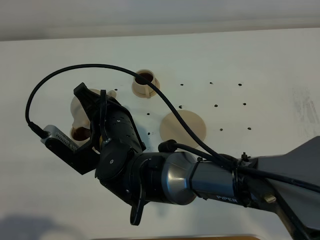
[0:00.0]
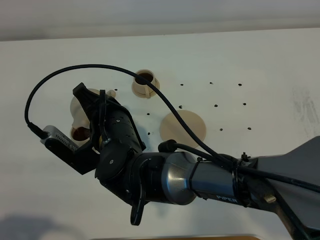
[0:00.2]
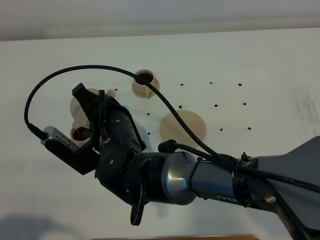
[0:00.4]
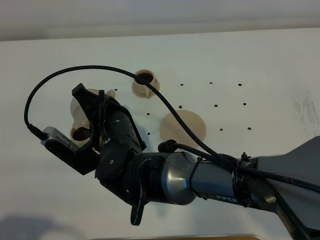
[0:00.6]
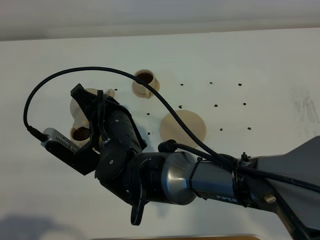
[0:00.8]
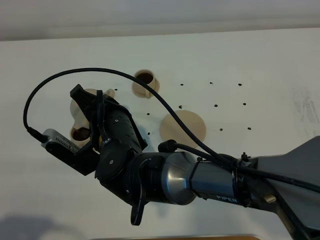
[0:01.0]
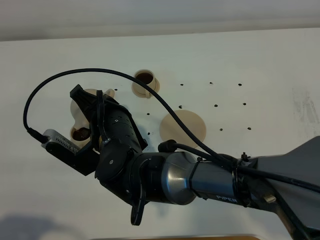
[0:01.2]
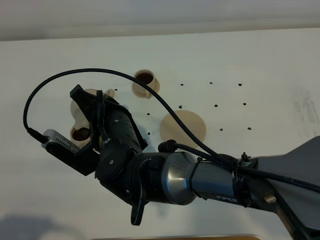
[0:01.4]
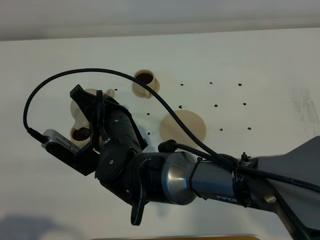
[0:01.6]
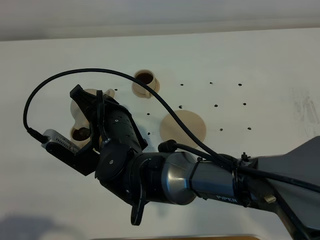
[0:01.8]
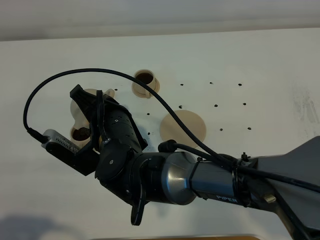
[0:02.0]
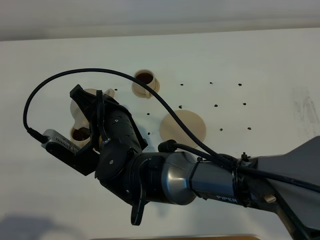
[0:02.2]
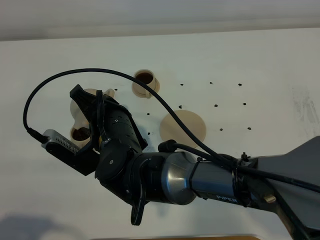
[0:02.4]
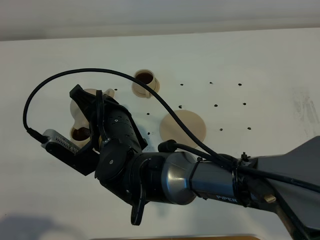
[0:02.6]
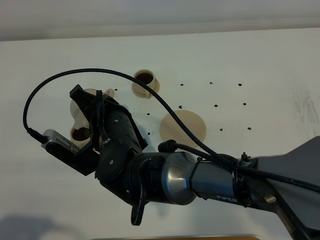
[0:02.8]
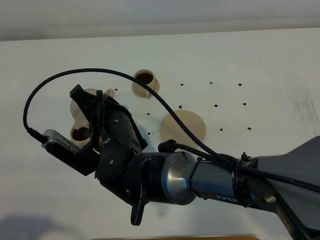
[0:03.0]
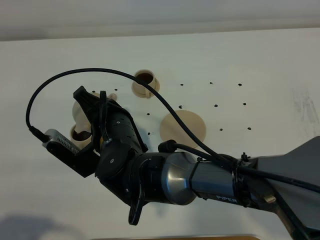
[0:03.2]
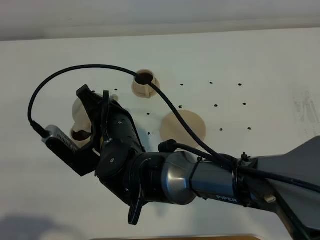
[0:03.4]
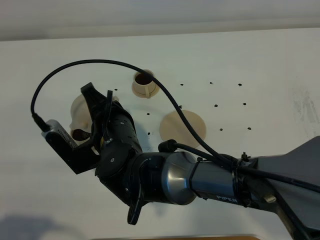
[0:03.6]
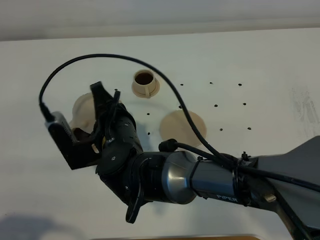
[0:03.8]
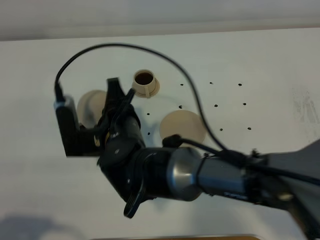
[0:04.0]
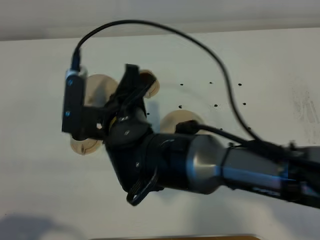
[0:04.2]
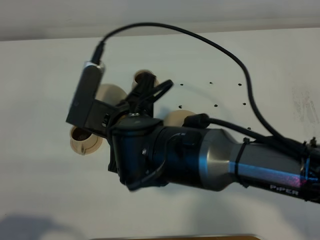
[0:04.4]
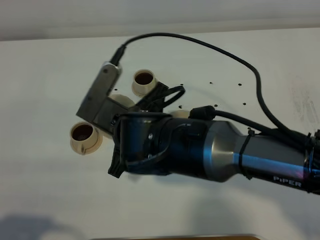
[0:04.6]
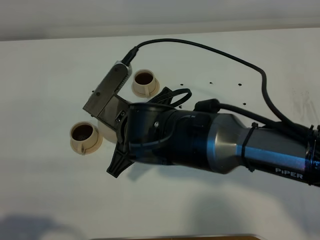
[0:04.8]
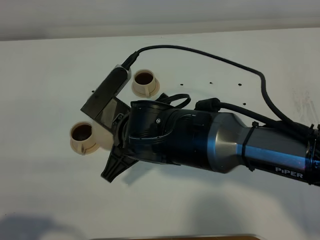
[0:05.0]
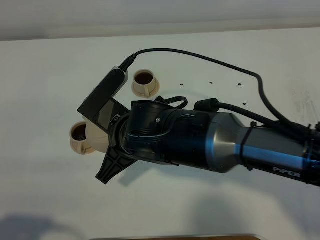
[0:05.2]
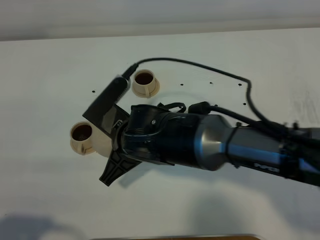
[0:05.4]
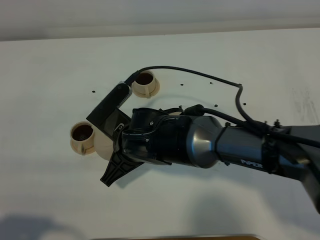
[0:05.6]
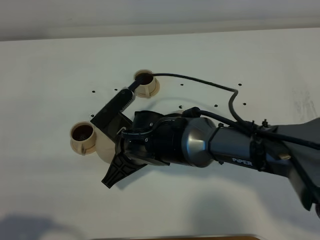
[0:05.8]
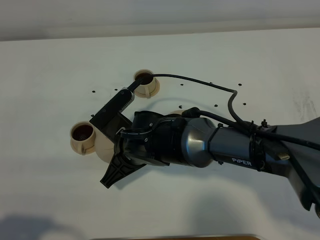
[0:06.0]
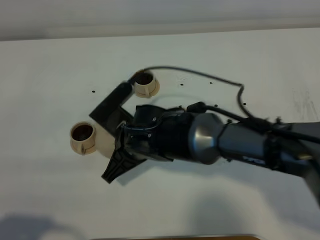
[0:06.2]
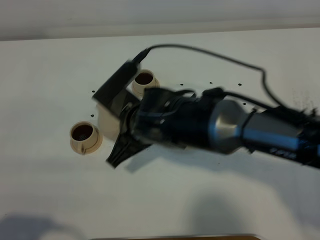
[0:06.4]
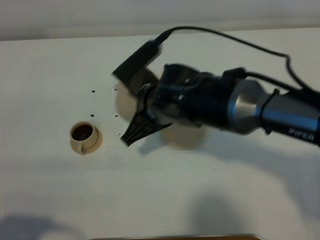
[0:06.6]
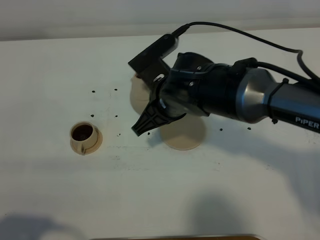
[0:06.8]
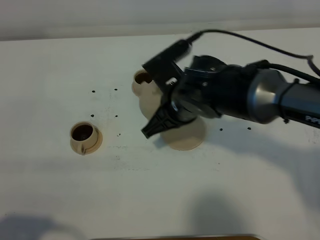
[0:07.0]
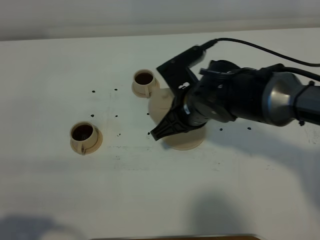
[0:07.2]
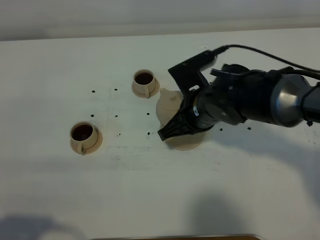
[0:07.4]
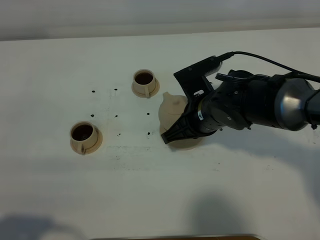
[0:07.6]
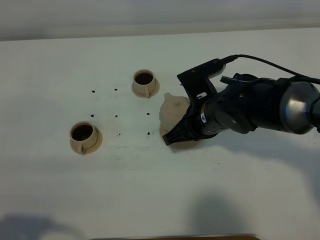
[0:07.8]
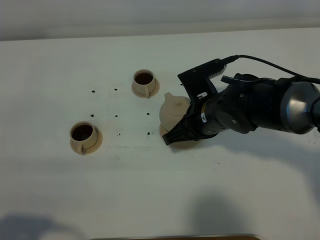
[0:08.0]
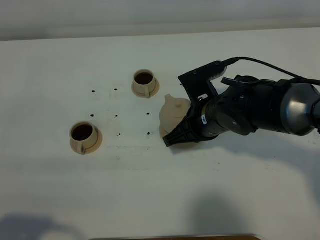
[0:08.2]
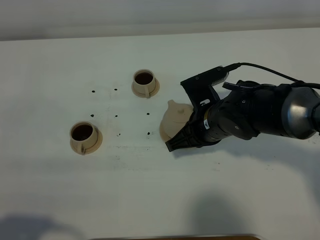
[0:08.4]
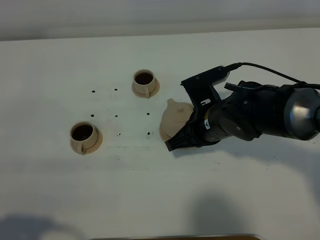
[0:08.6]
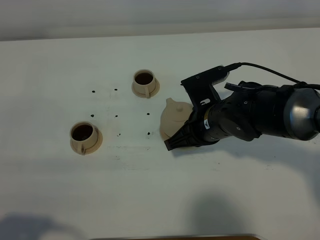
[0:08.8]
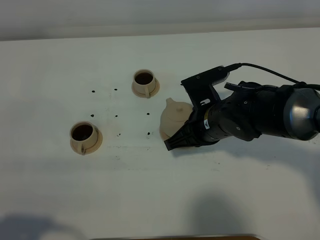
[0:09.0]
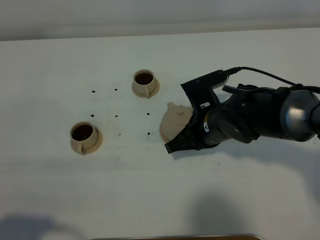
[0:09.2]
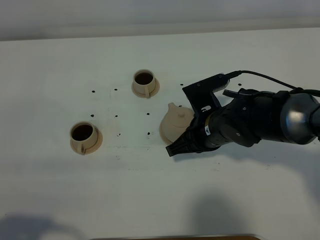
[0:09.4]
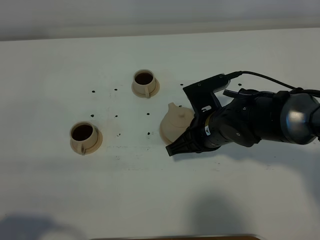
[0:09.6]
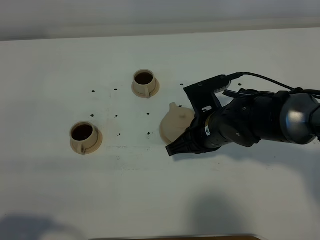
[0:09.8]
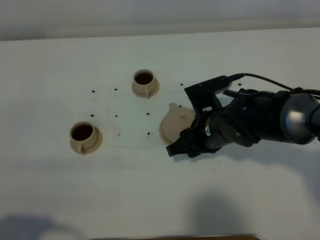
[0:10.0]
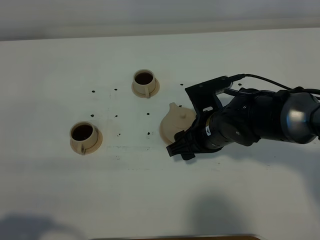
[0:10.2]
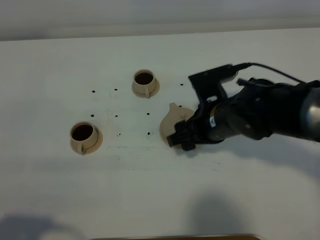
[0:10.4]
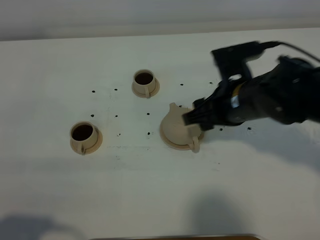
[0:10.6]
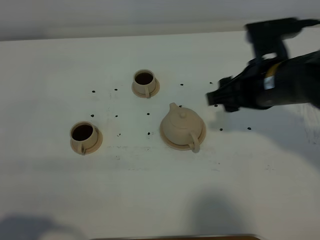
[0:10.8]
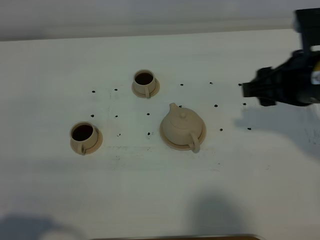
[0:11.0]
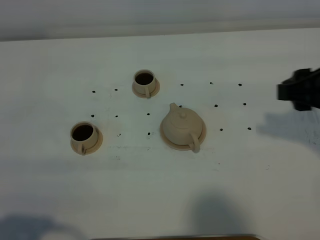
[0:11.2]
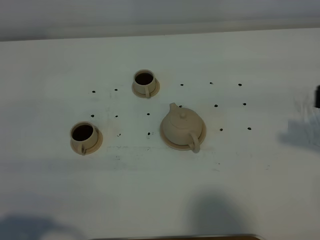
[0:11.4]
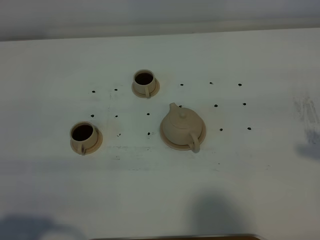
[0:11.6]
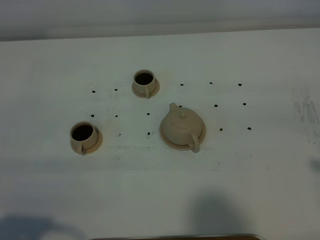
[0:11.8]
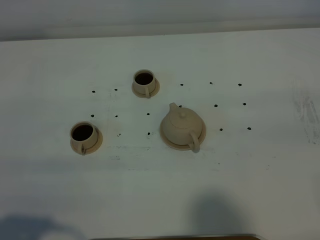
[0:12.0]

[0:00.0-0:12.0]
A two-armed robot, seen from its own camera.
Task of the whole recording: grasp the brown teapot and pour the tea into the two brown teacups one by one, put the brown teapot back in its original place.
Step, 0:00.0 to 0:03.2: Pour tea into the teacup with the right gripper.
0:00.0 to 0:03.0: Neither gripper changes place.
0:03.0 to 0:04.4: The right gripper moves approximately 5 cm.
0:04.4 to 0:06.0: The right gripper goes some 10 cm downward.
0:06.0 to 0:07.6: The right gripper goes roughly 15 cm to the right.
0:07.6 to 0:09.0: The grippers move only a little.
0:09.0 to 0:10.4: The right gripper opens up.
0:10.4 to 0:12.0: The right gripper goes roughly 35 cm backward, to the right and upward.

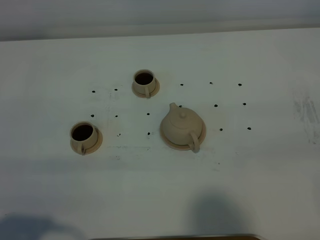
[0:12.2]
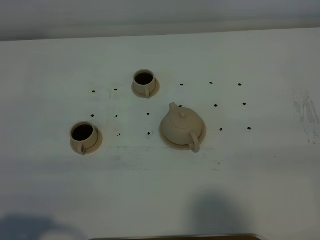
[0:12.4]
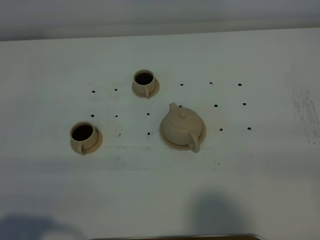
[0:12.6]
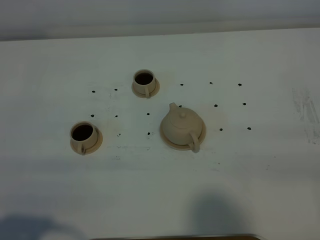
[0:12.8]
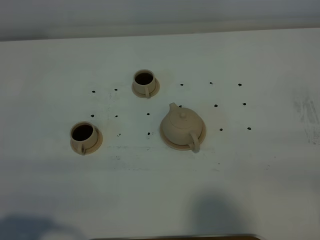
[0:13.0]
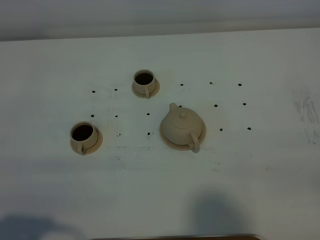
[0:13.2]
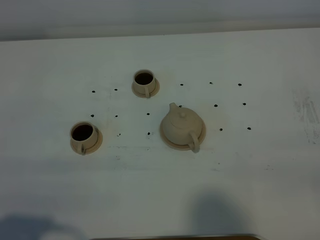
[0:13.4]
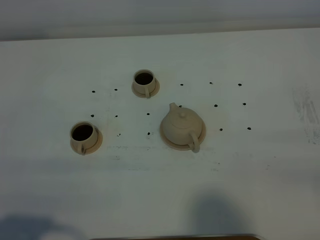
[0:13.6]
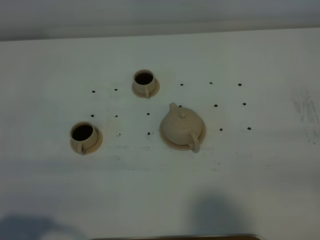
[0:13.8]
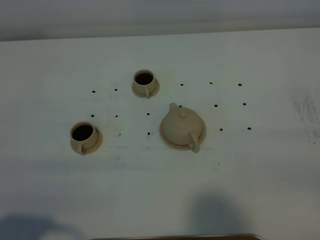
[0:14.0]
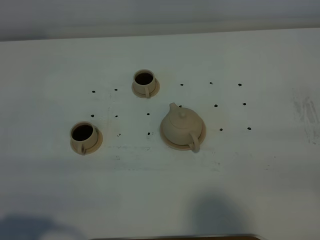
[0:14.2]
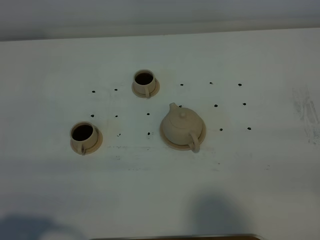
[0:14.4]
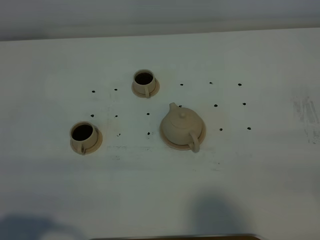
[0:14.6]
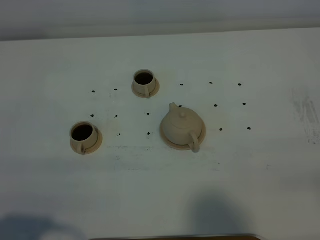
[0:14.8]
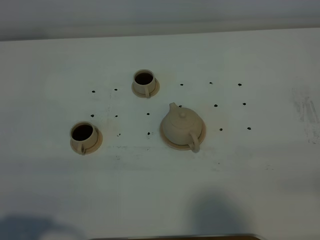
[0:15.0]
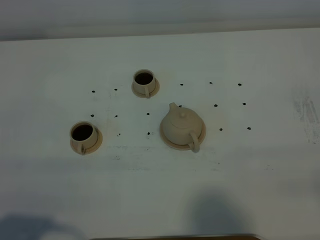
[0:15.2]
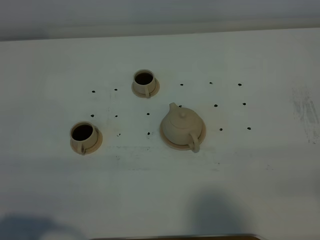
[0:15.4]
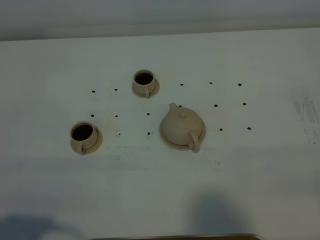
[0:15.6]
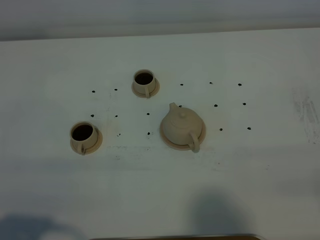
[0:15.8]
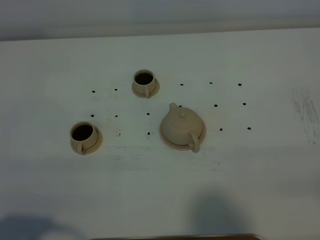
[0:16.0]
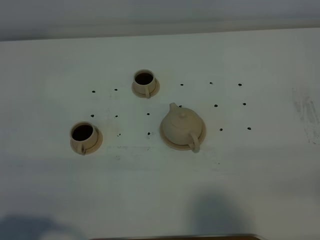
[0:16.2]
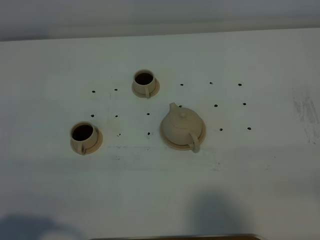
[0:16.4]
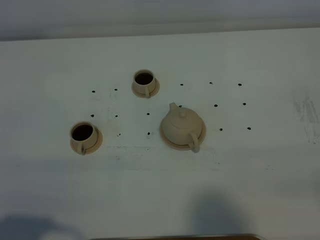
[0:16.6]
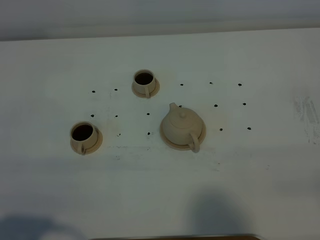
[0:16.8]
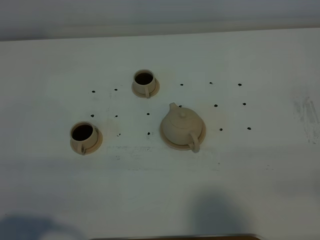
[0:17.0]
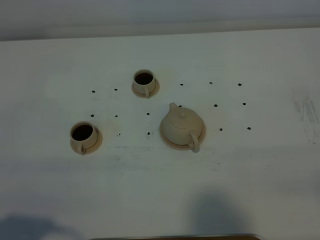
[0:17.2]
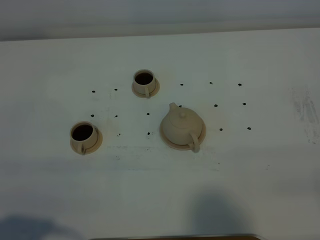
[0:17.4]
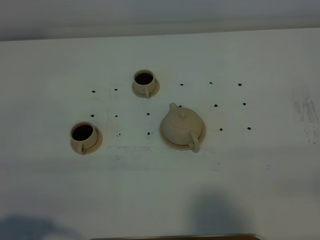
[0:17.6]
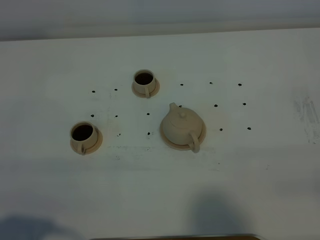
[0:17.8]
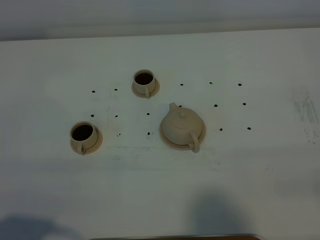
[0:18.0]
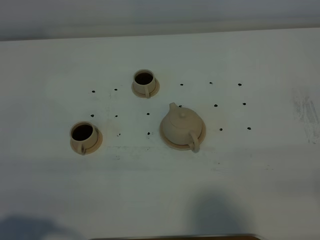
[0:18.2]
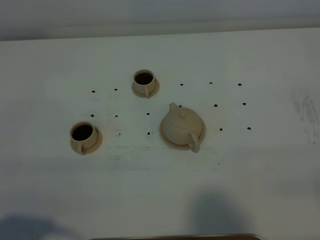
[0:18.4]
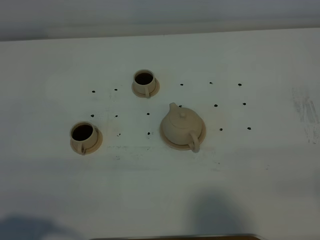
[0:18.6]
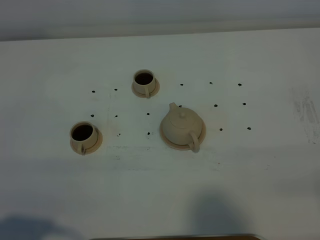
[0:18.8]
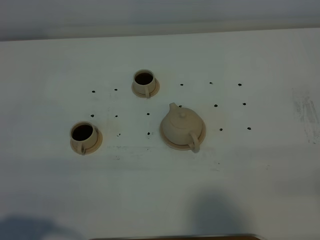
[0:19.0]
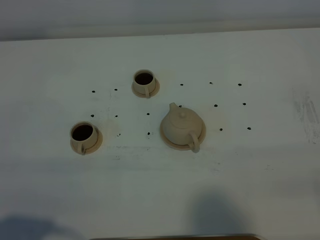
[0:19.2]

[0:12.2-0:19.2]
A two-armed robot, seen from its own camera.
Task of the whole recording: grasp the brown teapot and pour the tea into the two brown teacups one by one, put the brown teapot back in its original place.
0:15.0 to 0:19.2: Both grippers stay about where they are.
